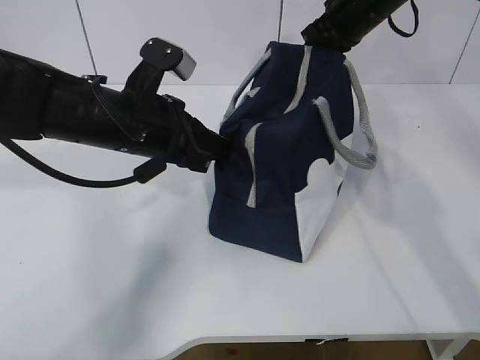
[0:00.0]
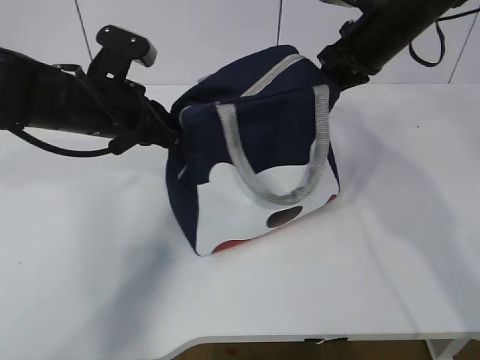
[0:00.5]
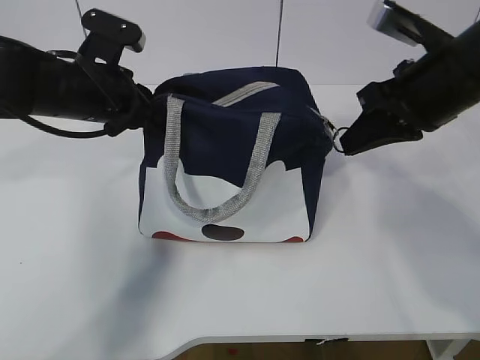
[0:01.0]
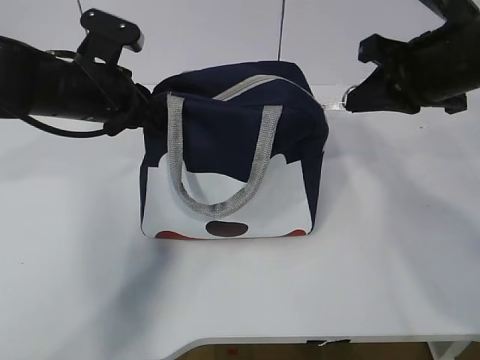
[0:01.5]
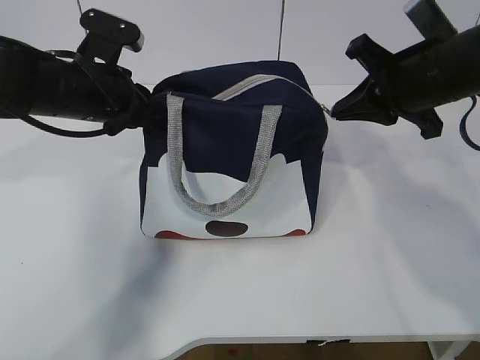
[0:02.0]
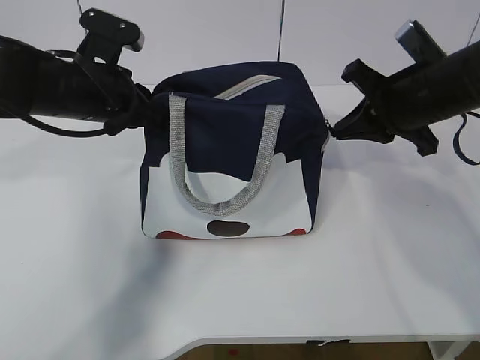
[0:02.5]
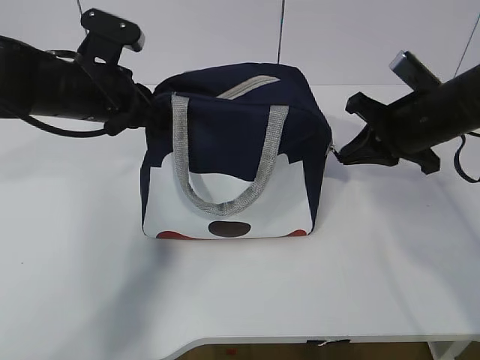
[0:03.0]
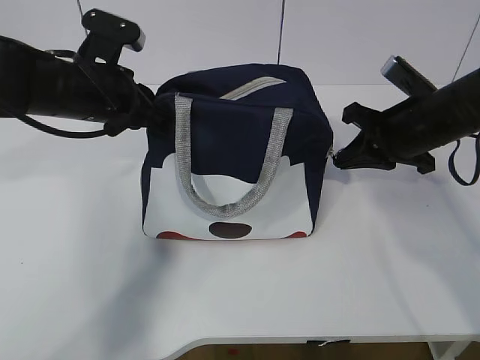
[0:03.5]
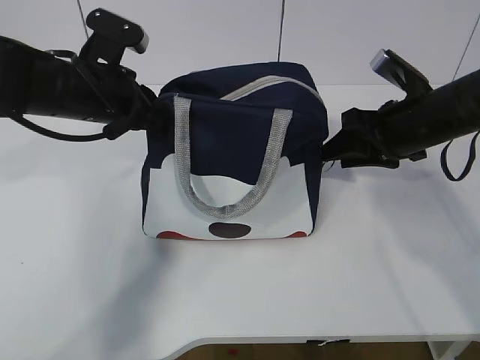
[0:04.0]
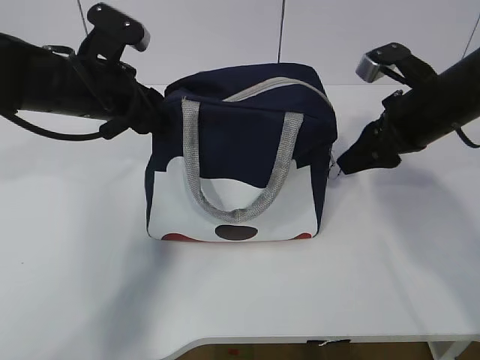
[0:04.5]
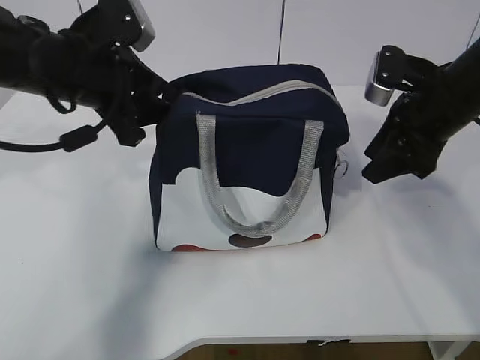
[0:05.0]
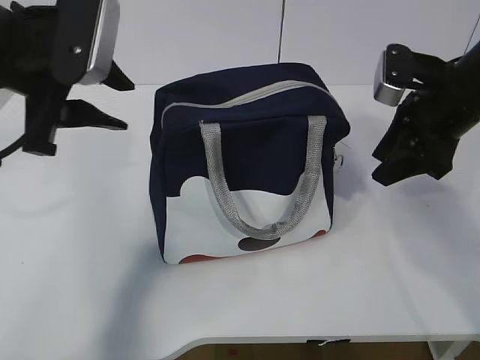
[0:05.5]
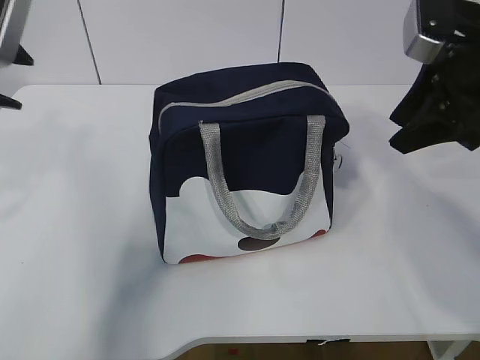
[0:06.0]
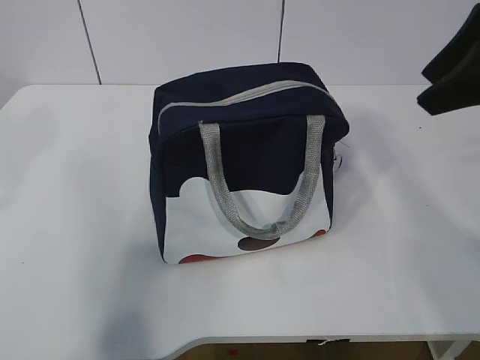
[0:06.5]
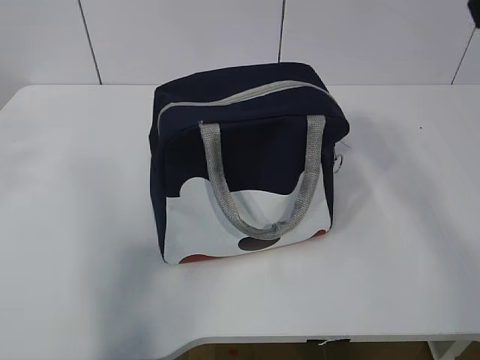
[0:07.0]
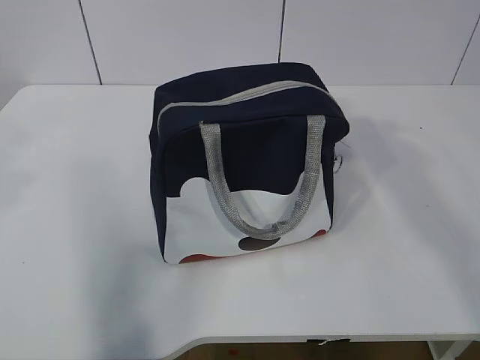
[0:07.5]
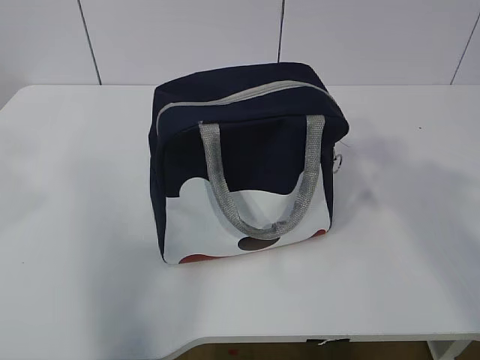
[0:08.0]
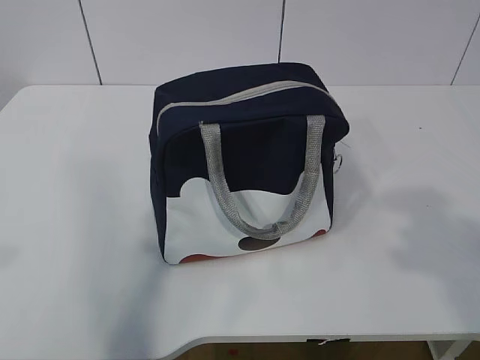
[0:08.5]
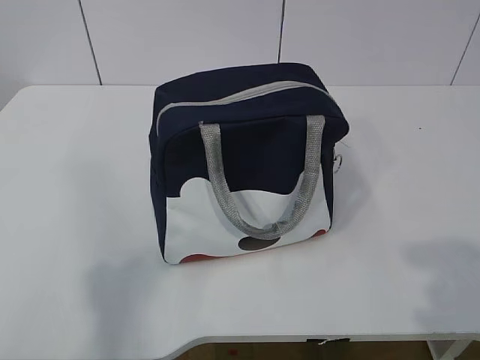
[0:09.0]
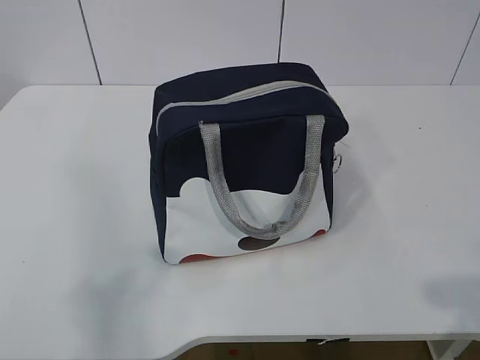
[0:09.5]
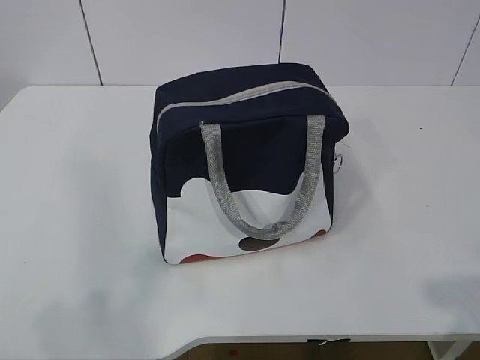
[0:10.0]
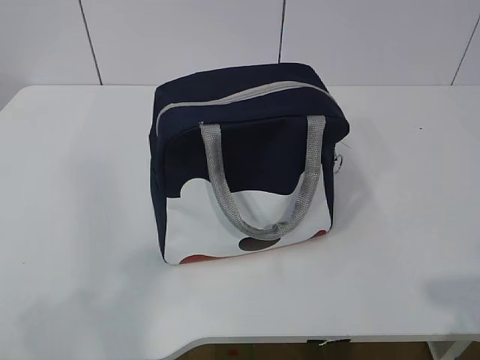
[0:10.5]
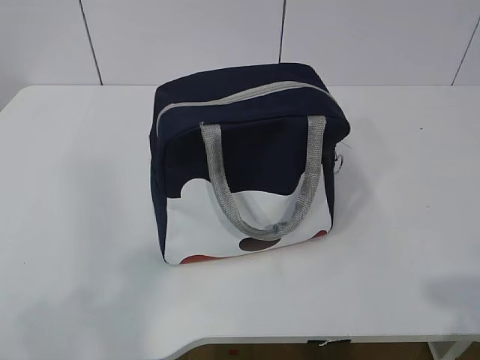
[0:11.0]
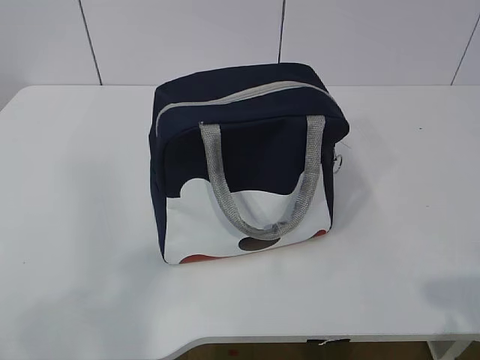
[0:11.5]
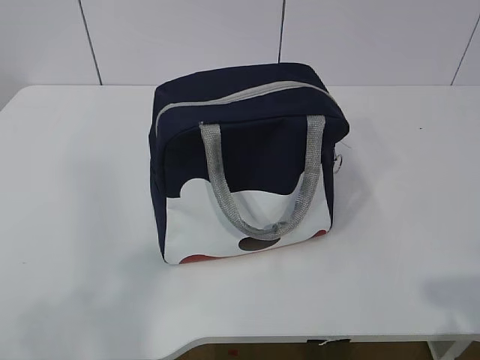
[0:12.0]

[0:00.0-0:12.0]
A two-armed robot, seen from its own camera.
Step, 0:00.0 to 0:05.0: zip up the zipper to close the bag.
0:00.0 to 0:02.0: The right gripper travels backward by some 15 cm; the left gripper travels to the left by roughly 5 cm.
0:02.0 to 0:04.0: The right gripper goes roughly 5 cm downward, and opens up.
0:04.0 to 0:06.0: The left gripper moves upward, backward and to the left, some 20 cm, and opens its fingers; the right gripper goes some 10 cm upward.
0:06.0 to 0:08.0: The left gripper shifts about 10 cm backward; the right gripper travels backward and upward by about 25 cm.
0:08.0 to 0:10.0: The left gripper is displaced backward, downward and to the left by about 20 cm. Meanwhile the right gripper heads downward and backward, covering about 20 cm.

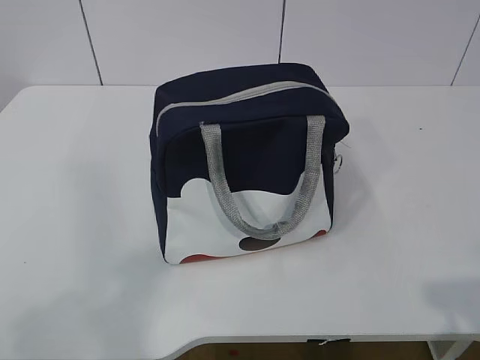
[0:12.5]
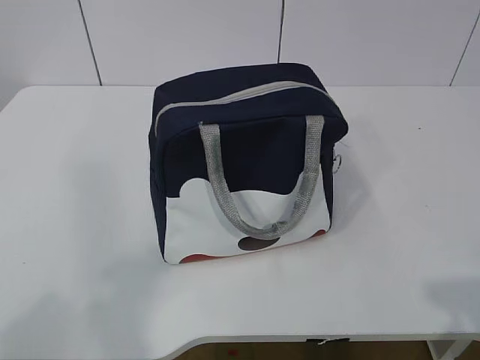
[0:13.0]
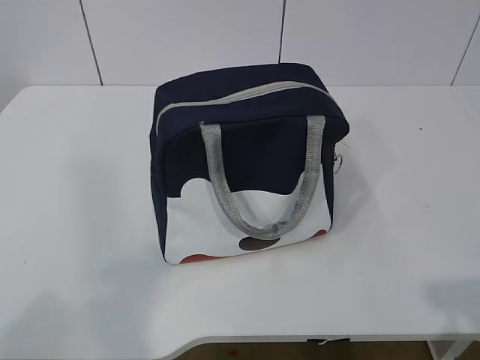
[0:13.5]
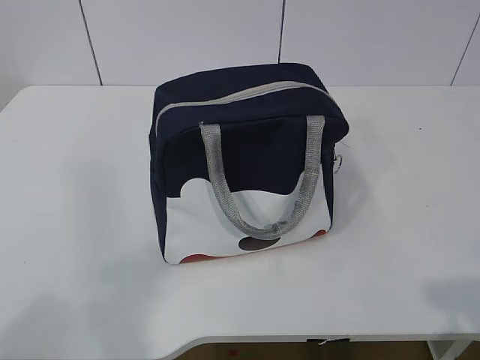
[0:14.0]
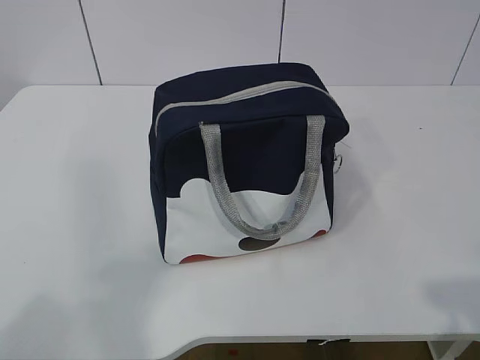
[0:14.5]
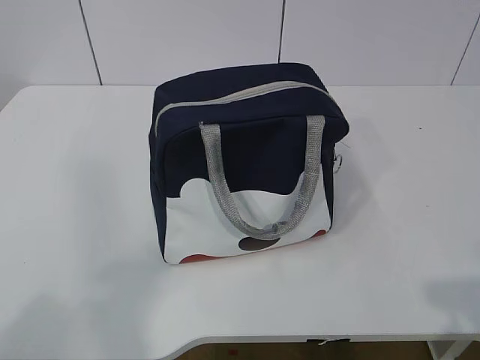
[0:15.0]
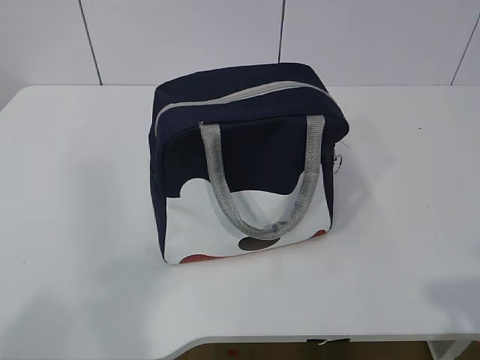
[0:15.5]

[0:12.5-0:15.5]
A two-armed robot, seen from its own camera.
0:14.0 to 0:15.5: Both grippers stay about where they are.
